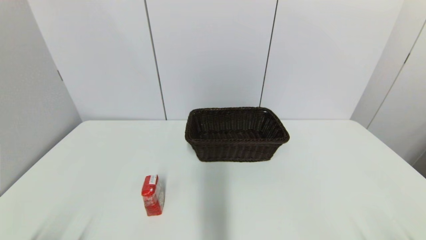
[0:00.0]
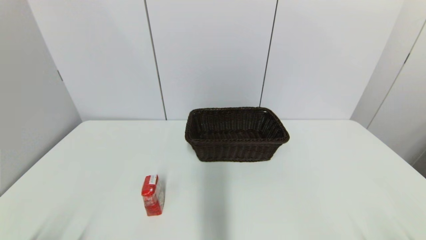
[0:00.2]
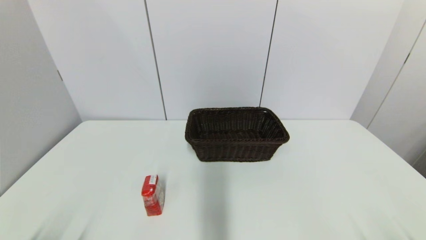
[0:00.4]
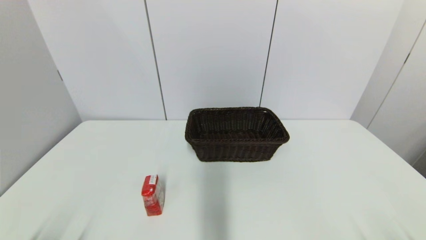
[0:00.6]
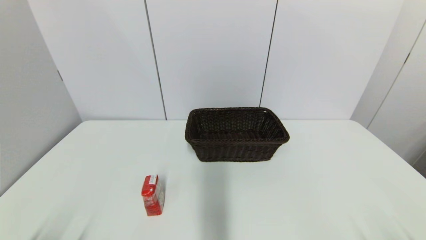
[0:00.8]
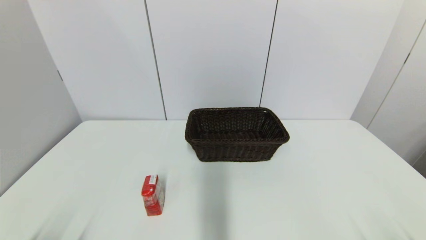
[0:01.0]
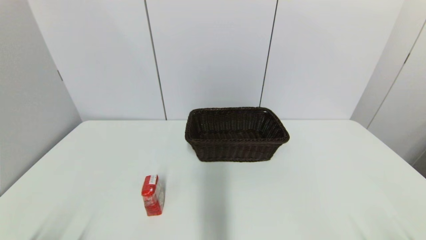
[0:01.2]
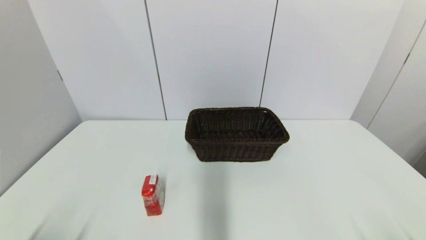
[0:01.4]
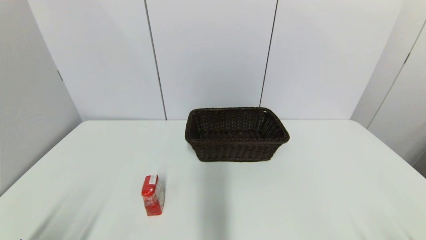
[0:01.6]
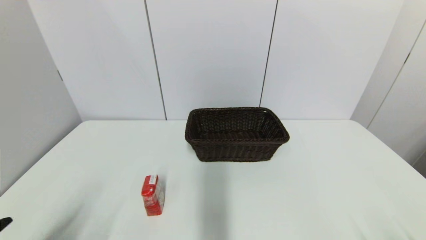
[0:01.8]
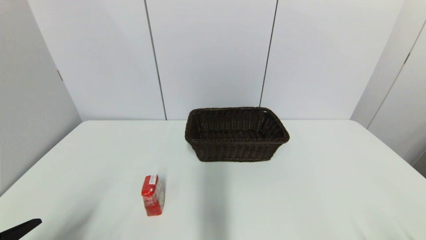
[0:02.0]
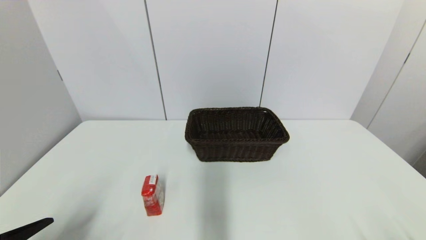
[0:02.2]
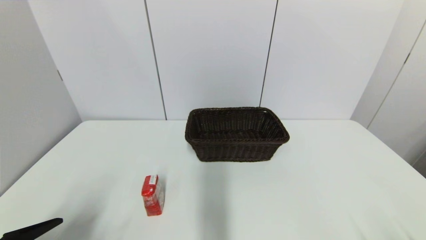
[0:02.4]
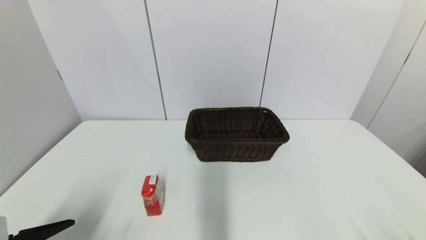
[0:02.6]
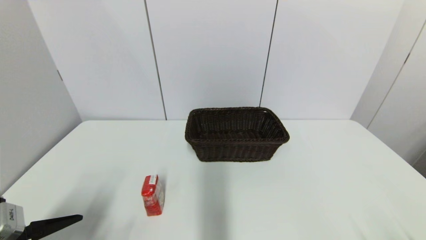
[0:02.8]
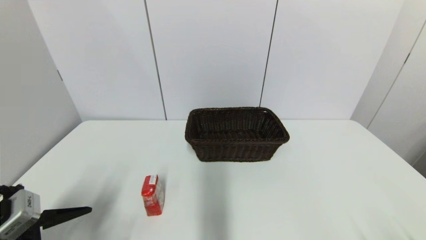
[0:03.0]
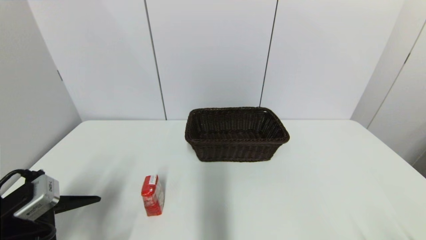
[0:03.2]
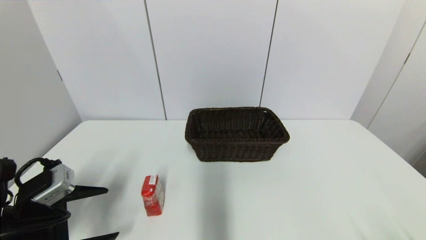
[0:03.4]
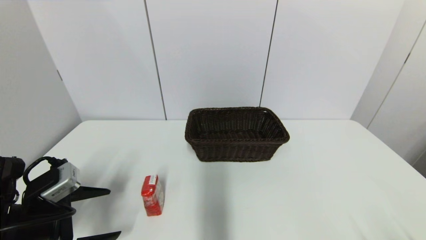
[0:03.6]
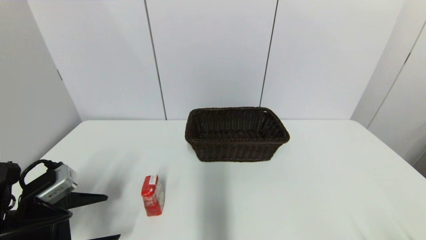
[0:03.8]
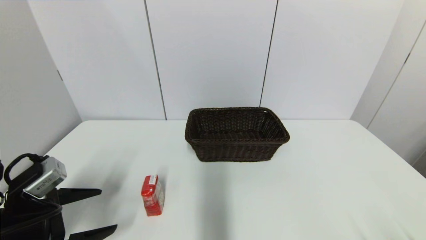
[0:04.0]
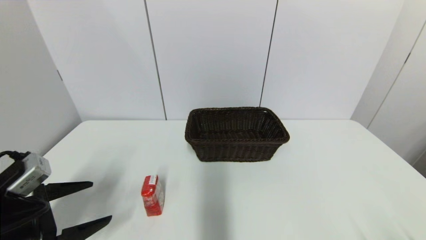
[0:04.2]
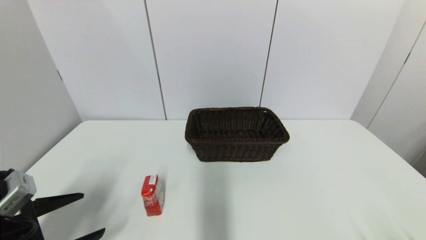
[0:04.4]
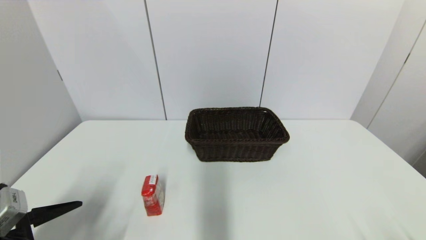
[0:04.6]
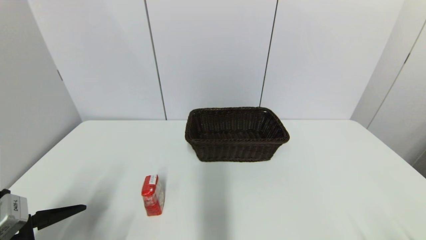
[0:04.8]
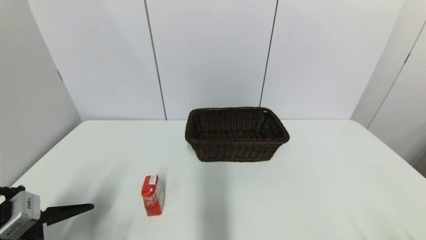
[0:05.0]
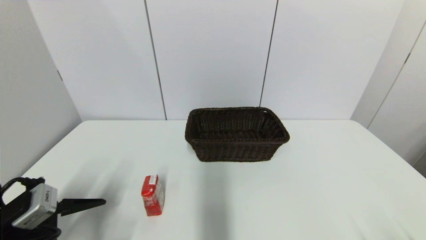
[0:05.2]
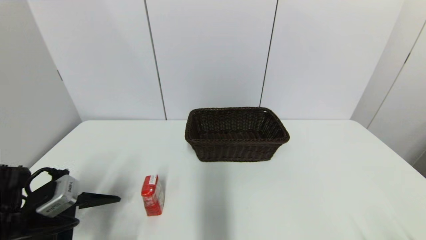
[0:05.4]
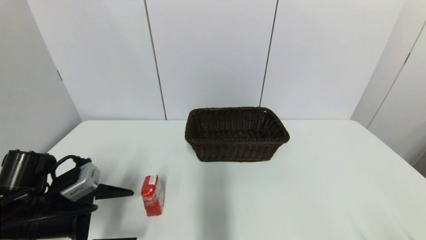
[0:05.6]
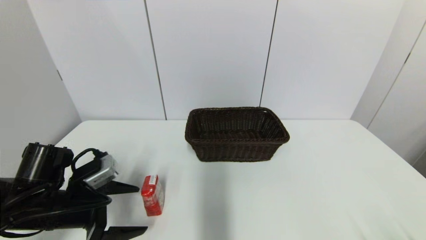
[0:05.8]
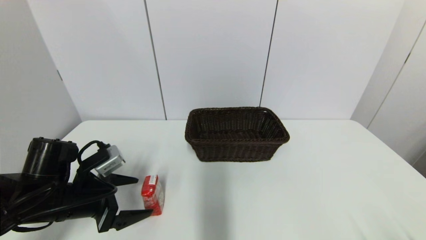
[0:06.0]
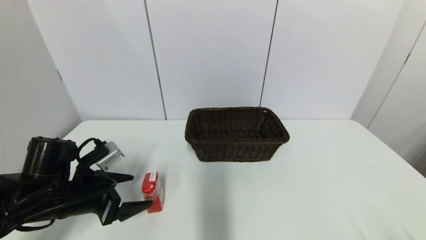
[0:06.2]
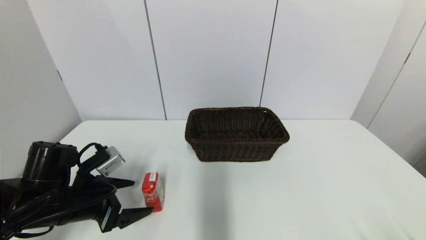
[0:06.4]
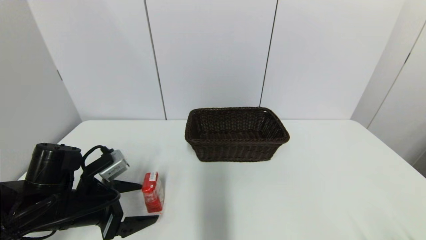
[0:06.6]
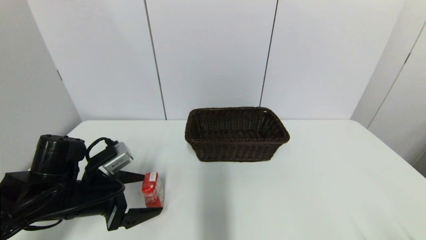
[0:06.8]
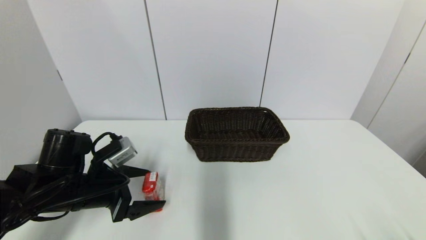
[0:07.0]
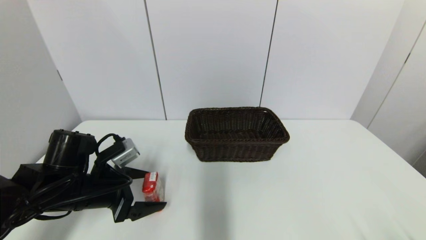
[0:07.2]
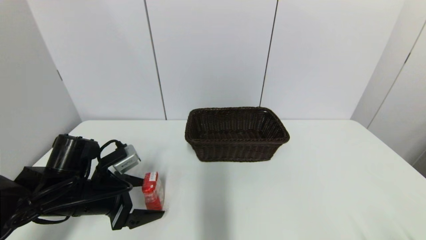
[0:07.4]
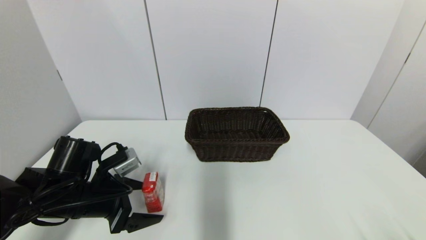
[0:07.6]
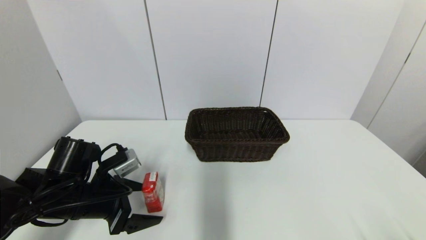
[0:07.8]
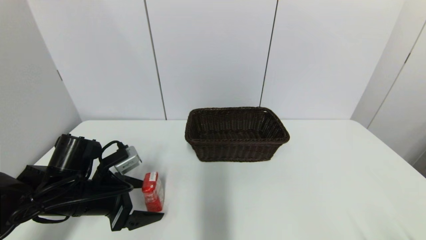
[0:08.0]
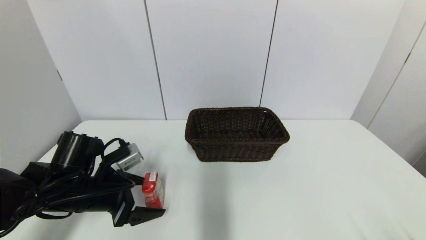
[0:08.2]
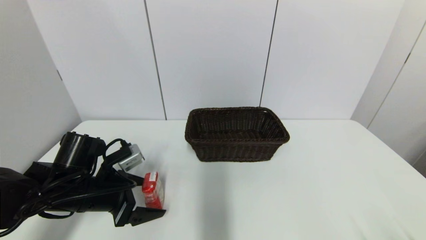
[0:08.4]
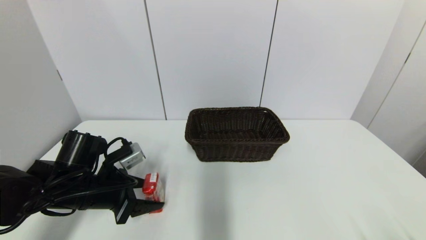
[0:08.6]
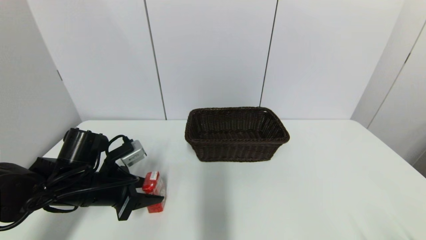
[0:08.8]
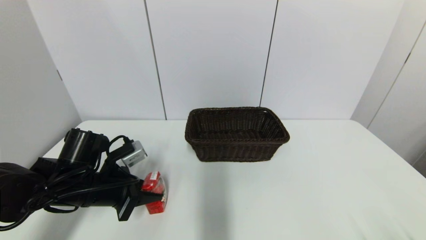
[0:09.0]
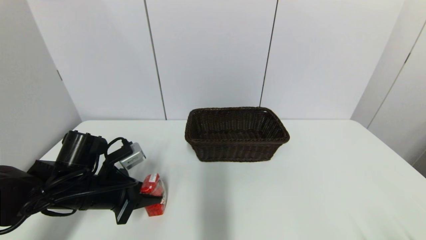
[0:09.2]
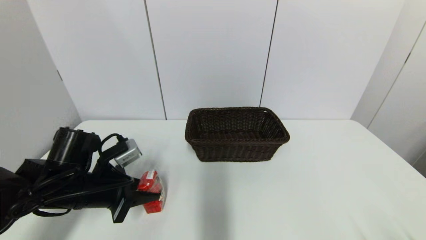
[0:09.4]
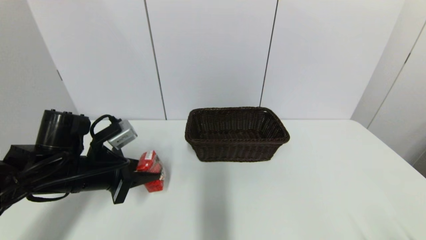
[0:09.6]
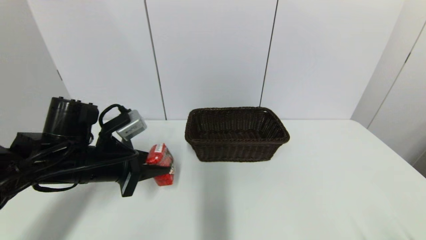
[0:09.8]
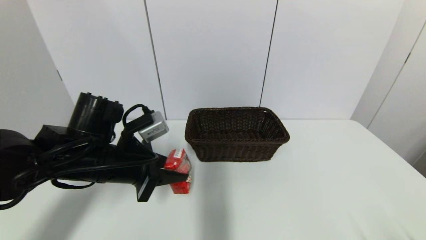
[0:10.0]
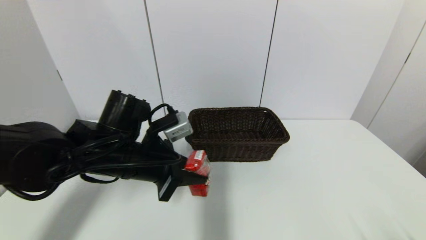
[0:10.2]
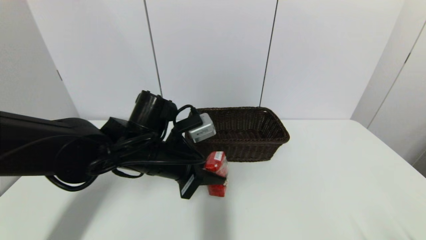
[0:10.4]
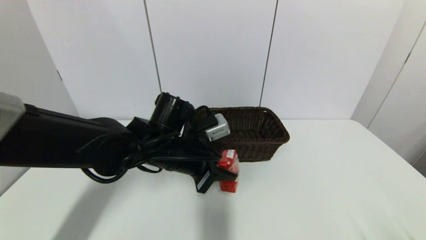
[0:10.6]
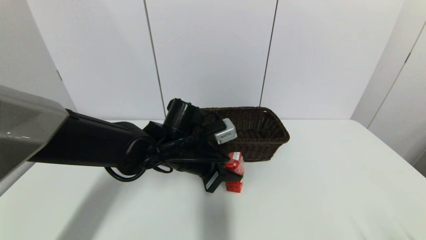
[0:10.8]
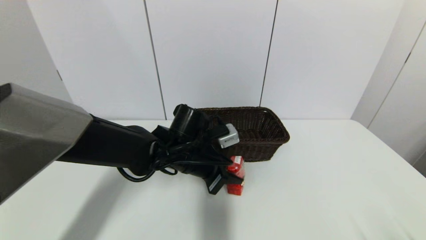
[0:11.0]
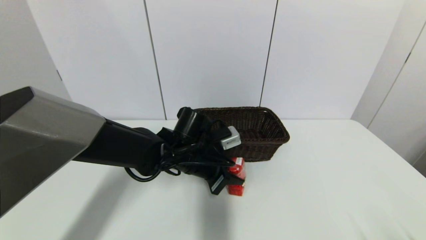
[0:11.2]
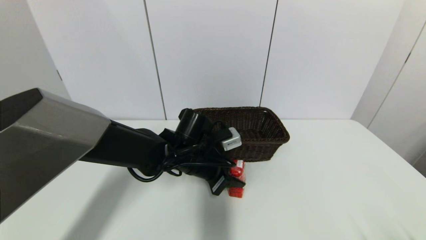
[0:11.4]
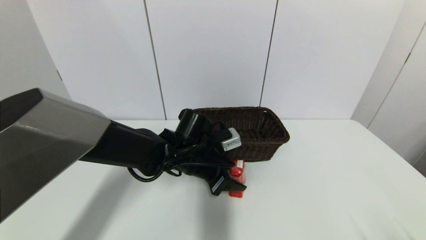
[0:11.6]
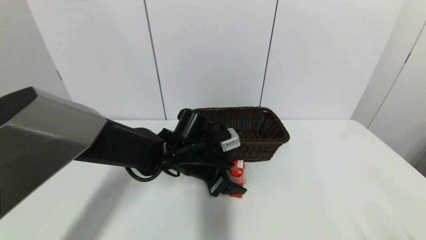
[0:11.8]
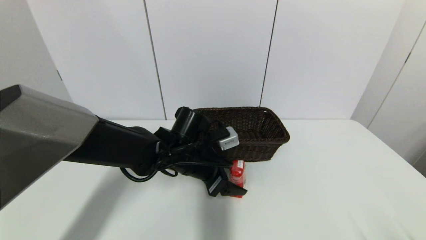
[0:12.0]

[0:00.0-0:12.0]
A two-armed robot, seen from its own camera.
Step, 0:02.0 to 0:09.0: Grasp the wangzai milk with left gripper.
Step, 0:09.4 to 0:11.8: Place the wangzai milk on the table with left gripper.
0:01.6 to 0:03.0: The left gripper is displaced forward by approximately 10 cm.
0:03.0 to 0:04.4: There are only small adjustments of the grippers.
0:04.4 to 0:06.0: The left gripper goes some 10 cm forward and to the right.
0:06.0 to 0:07.6: The grippers move only a little.
0:07.6 to 0:09.0: The left gripper closes its fingers.
0:09.0 to 0:10.4: The left gripper moves to the right and upward, some 15 cm.
0:10.4 to 0:12.0: The left gripper moves some 10 cm, and opens its fingers.

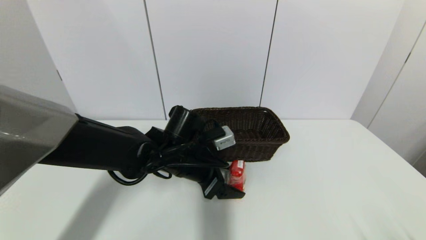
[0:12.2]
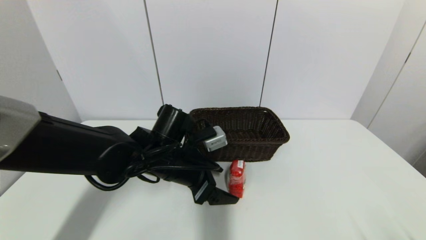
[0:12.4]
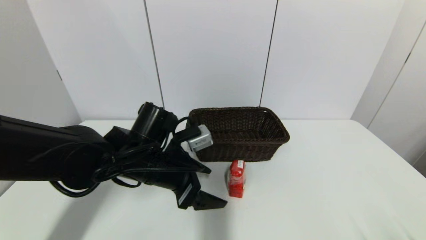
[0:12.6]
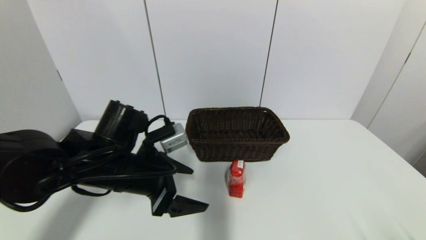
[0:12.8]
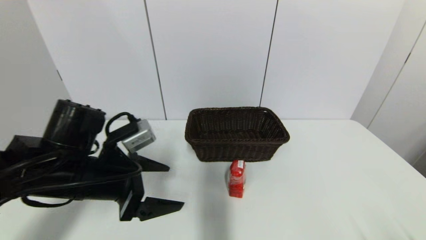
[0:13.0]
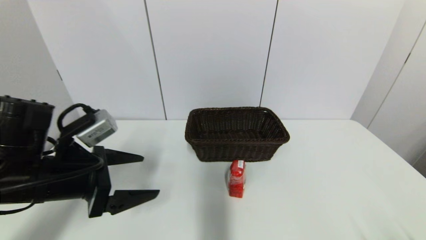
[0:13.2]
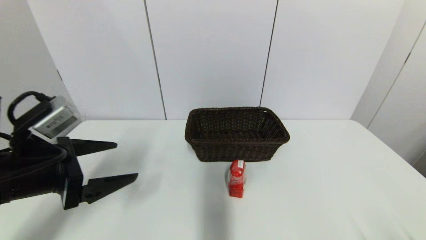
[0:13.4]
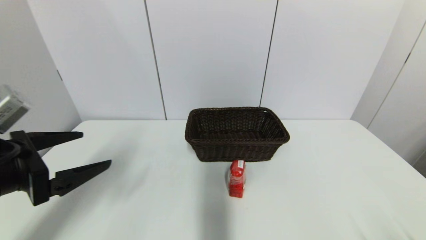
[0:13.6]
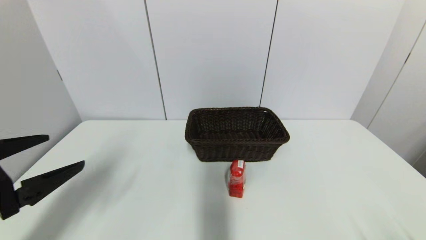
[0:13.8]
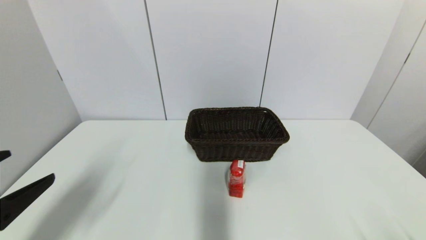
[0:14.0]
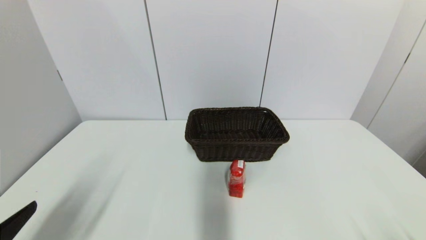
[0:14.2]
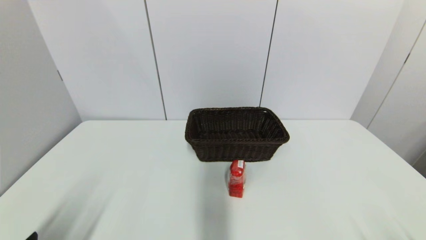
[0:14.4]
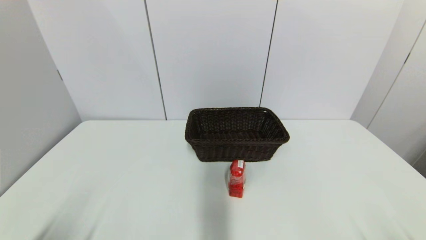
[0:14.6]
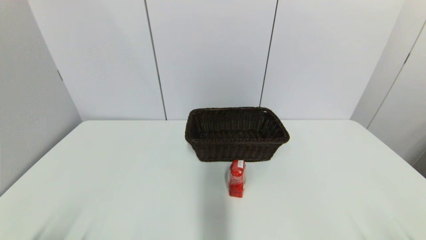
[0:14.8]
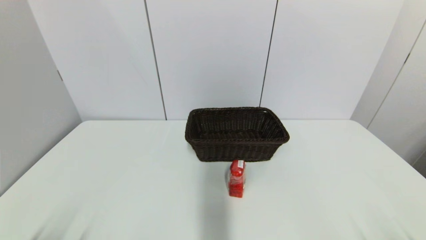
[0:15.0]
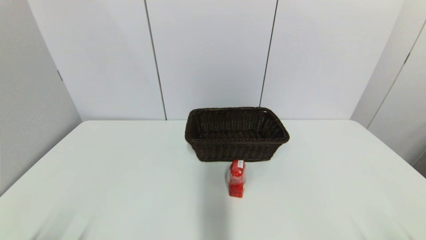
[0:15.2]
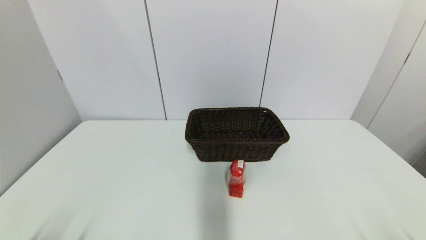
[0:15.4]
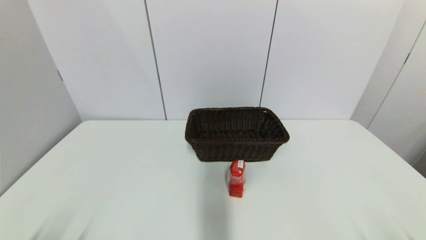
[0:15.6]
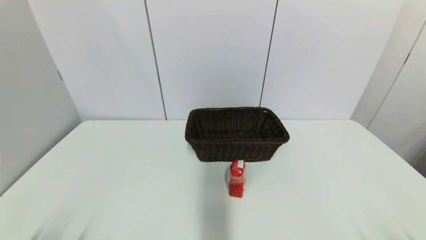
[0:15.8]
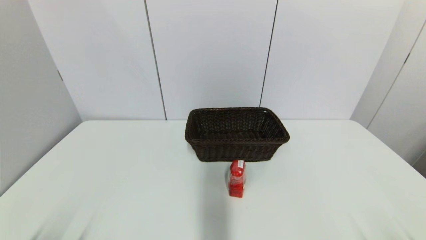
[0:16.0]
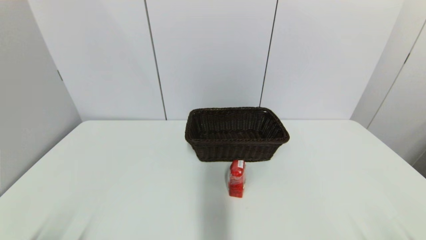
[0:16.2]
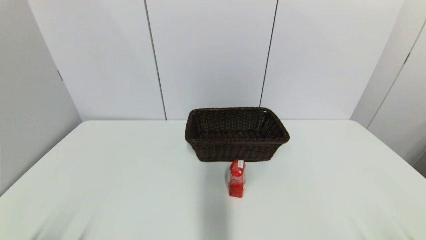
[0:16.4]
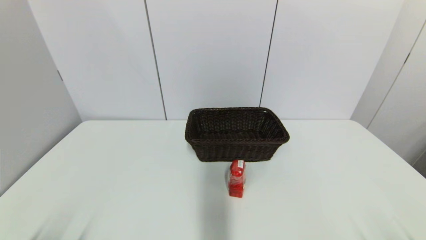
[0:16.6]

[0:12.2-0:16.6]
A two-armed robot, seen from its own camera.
0:12.2 to 0:13.6: The left gripper moves to the left, backward and upward, about 30 cm.
0:13.6 to 0:15.2: The left gripper is displaced downward and backward by approximately 20 cm.
0:15.2 to 0:16.6: Both grippers stay about where they are.
